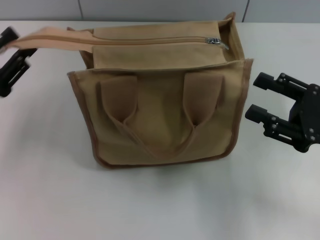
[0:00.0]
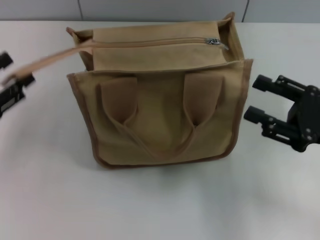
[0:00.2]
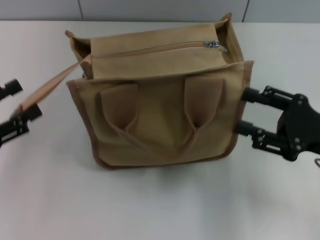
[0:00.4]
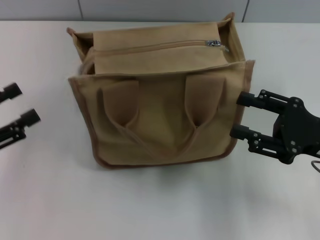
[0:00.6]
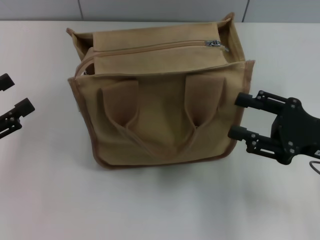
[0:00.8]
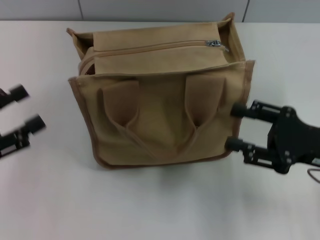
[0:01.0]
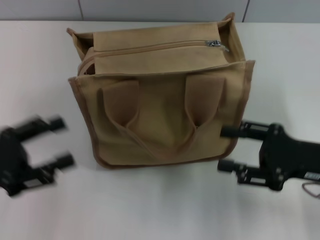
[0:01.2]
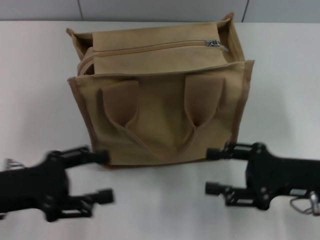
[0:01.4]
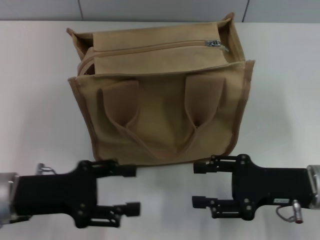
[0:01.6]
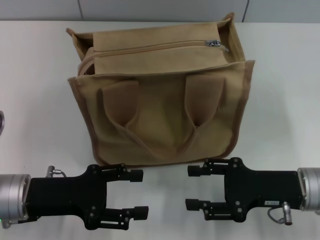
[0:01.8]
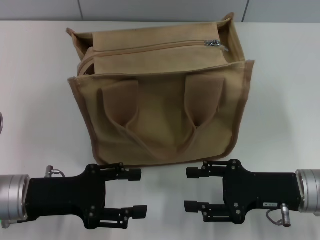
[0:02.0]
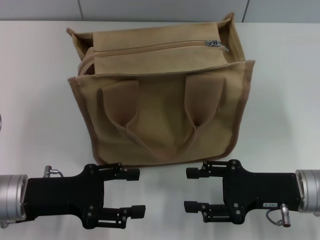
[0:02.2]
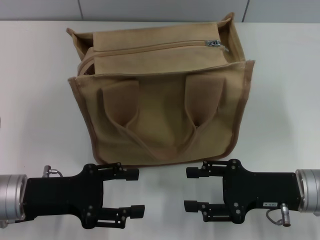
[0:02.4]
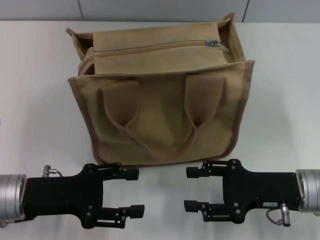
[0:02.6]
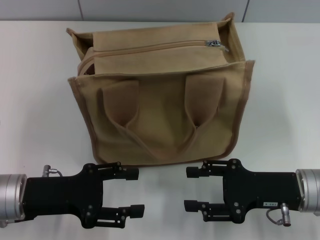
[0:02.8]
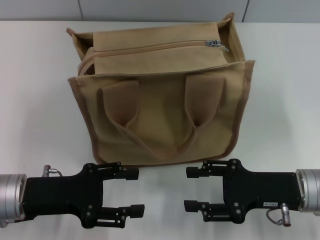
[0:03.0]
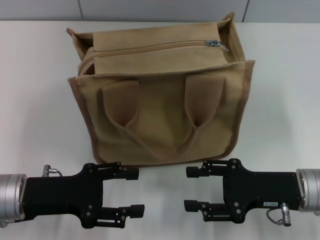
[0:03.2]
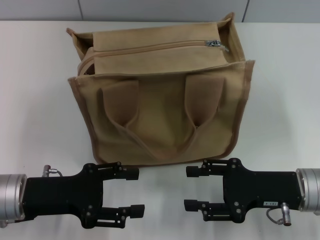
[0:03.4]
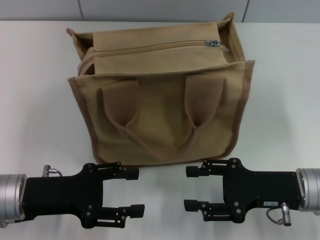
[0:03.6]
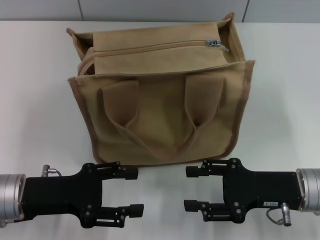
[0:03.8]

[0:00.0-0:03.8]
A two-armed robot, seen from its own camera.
0:00.0 to 0:01.2: The left gripper opens up.
0:01.2 to 0:02.6: The left gripper heads to the right, covering some 5 cm; the right gripper shifts by about 5 cm.
0:02.6 to 0:03.8: Both grippers stay about where they are.

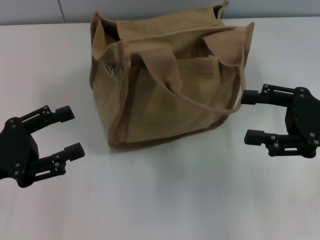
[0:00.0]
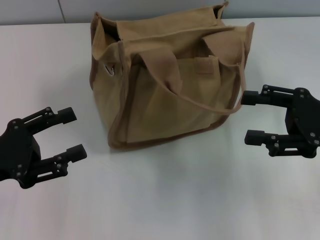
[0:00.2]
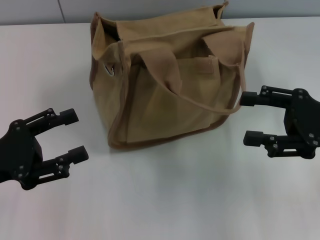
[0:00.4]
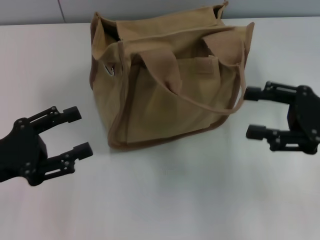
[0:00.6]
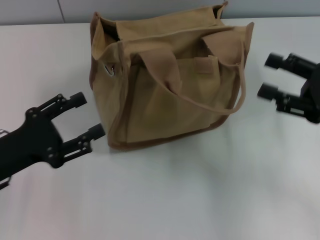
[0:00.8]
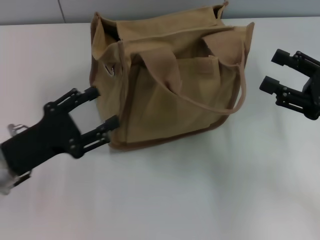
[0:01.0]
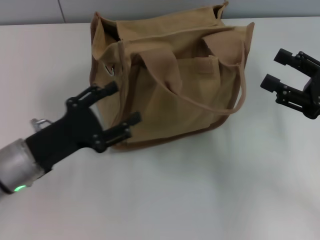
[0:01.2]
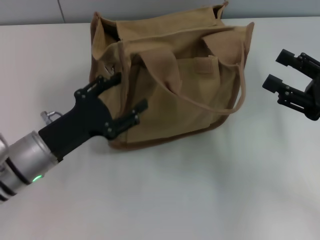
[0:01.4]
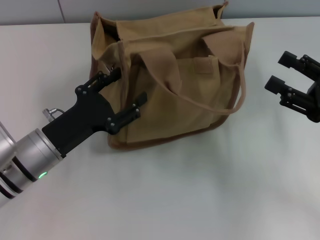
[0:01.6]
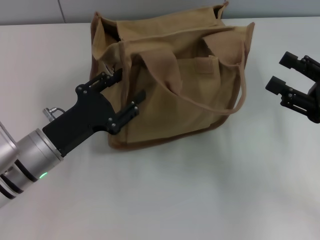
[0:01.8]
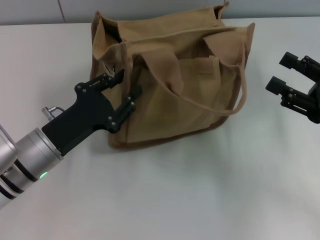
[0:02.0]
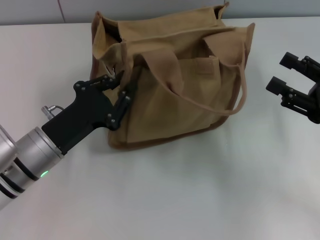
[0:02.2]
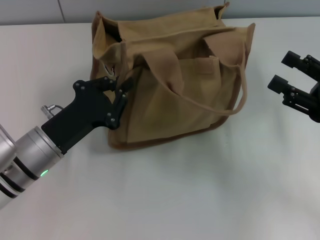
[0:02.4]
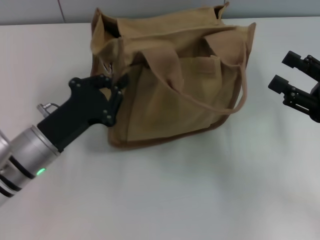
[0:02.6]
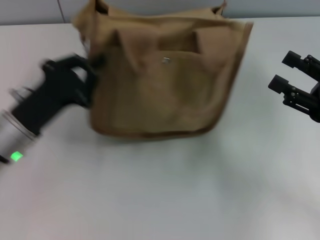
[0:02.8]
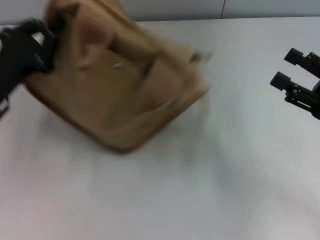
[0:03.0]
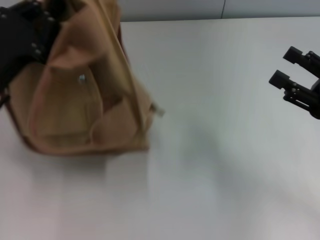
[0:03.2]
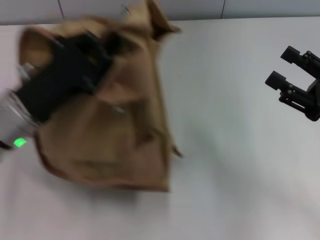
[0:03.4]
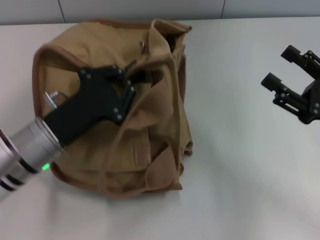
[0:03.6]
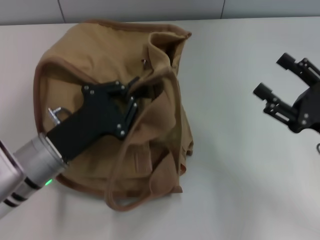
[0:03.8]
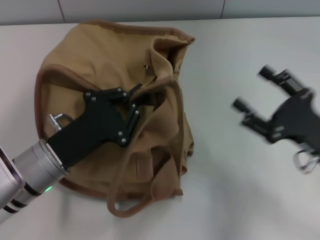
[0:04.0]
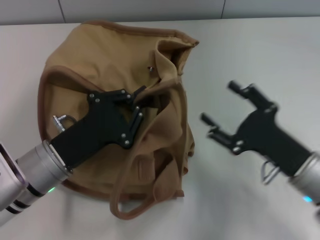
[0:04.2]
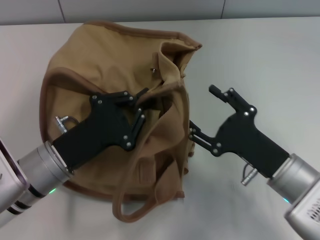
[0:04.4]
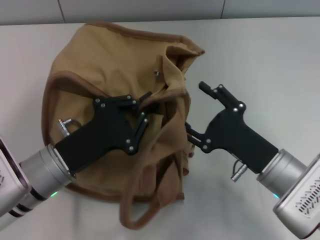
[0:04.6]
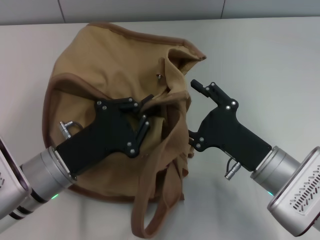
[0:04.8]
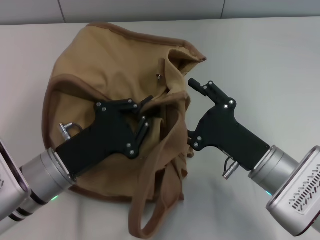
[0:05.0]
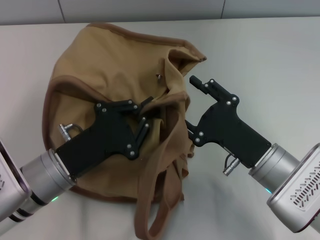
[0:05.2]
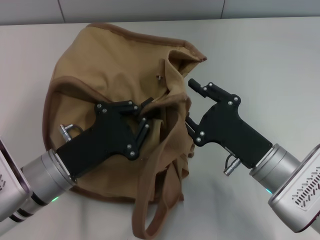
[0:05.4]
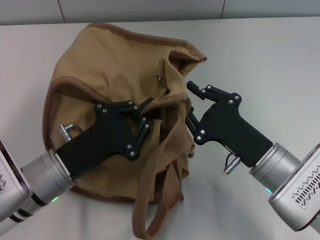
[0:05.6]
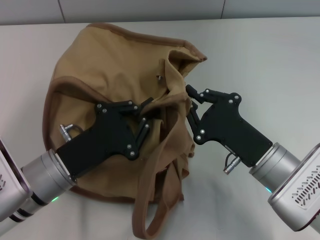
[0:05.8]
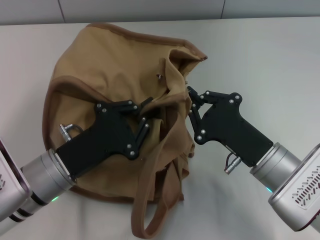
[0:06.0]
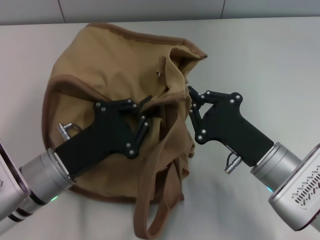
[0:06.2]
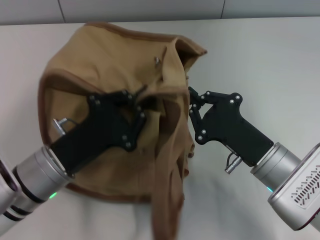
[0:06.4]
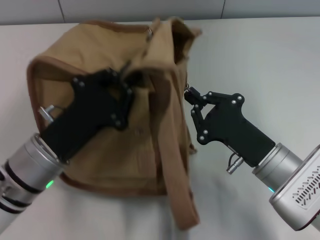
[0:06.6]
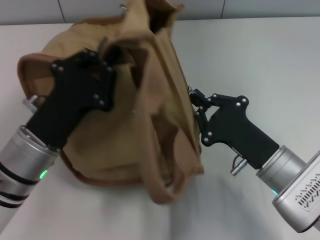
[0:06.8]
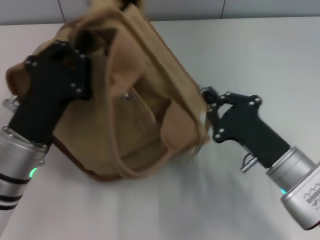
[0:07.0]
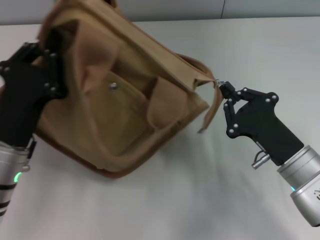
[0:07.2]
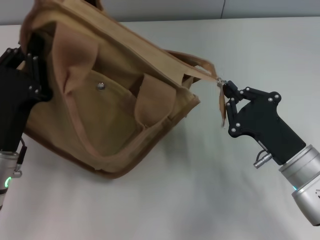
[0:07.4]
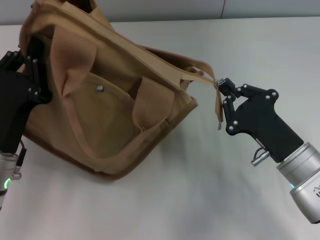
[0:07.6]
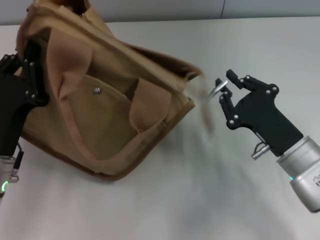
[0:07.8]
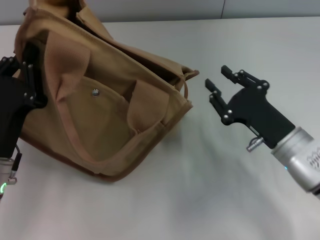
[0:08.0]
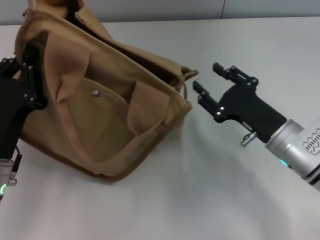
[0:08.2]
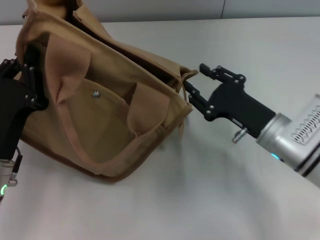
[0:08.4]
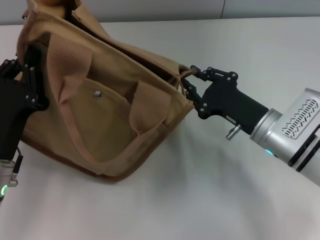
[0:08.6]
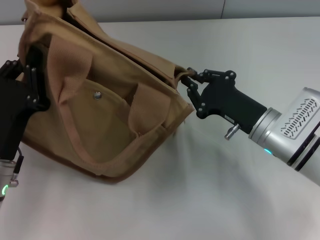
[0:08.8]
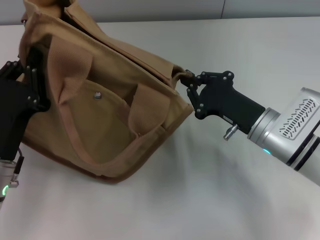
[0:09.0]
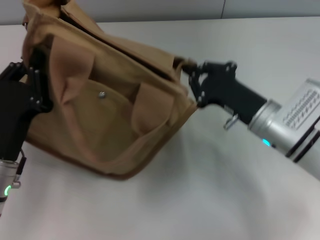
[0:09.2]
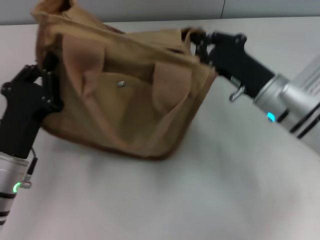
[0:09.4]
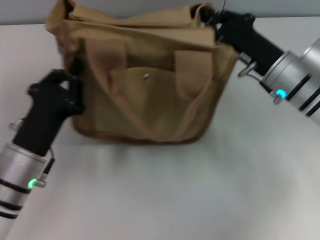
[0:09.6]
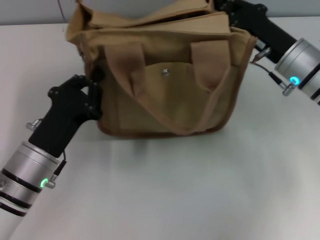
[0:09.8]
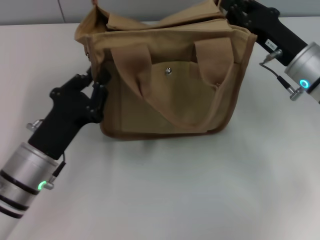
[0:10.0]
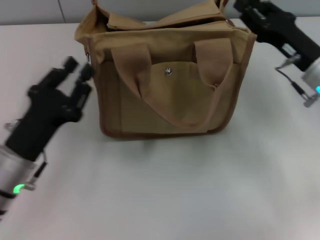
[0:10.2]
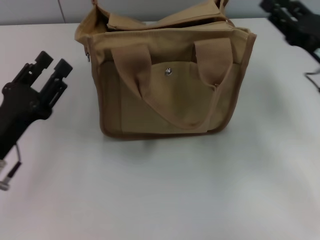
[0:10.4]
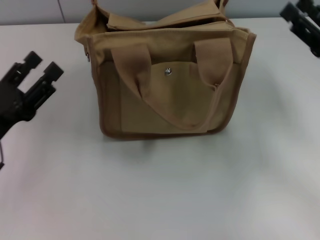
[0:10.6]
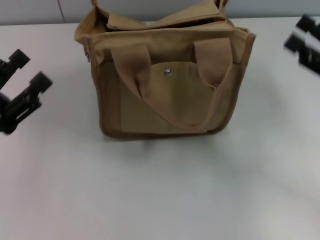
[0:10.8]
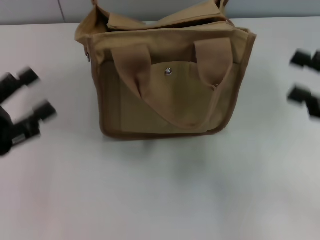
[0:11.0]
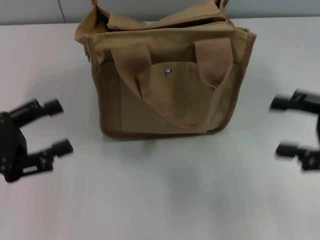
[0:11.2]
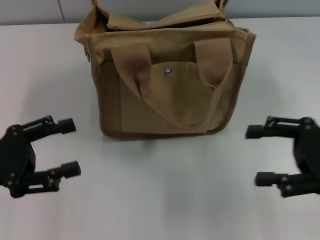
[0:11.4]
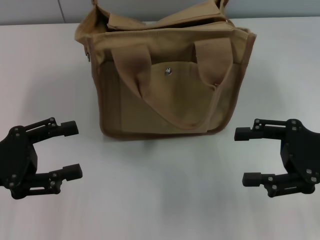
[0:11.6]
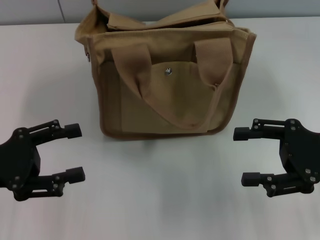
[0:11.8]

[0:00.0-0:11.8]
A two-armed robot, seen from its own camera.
Step, 0:00.0 to 0:07.8: Pull open the zipper with your right hand.
Step, 0:08.0 to 0:10.0: Grab the bag with your left hand.
0:00.0 to 0:01.4: The left gripper travels to the right by approximately 10 cm.
0:01.4 to 0:03.0: The left gripper is displaced to the left by roughly 5 cm, and closes up.
0:03.0 to 0:04.4: The right gripper shifts approximately 15 cm to the left and downward. Meanwhile the left gripper is displaced to the right and backward by approximately 10 cm.
0:04.4 to 0:06.0: The right gripper closes.
0:07.4 to 0:08.8: The right gripper is displaced forward by approximately 5 cm, and opens up.
0:08.8 to 0:10.4: The right gripper is displaced to the right and upward by roughly 10 cm, and closes and opens again.
0:10.4 to 0:11.8: The right gripper is displaced backward by roughly 5 cm, and opens its fingers; the left gripper goes about 5 cm to the left, and opens its fingers.

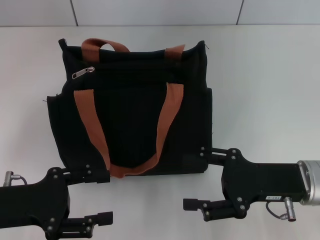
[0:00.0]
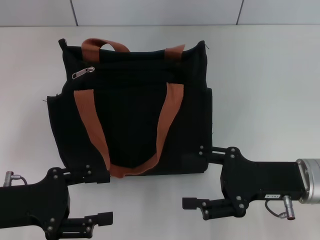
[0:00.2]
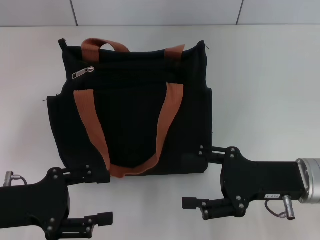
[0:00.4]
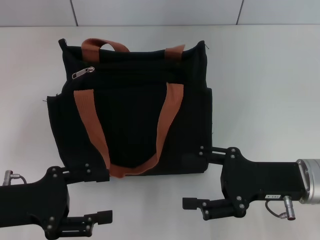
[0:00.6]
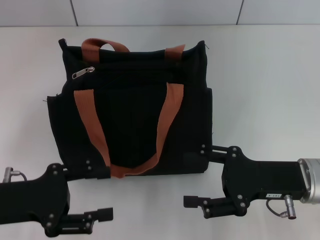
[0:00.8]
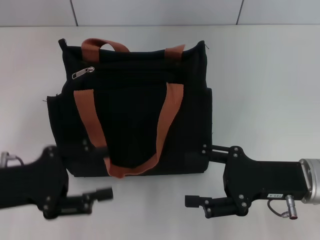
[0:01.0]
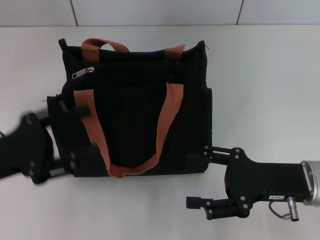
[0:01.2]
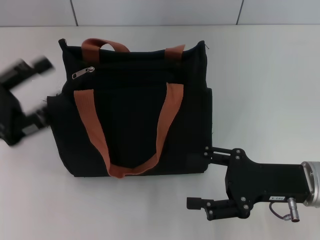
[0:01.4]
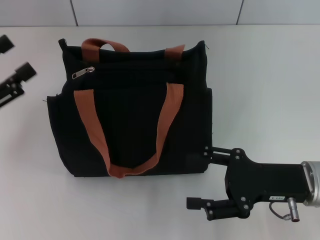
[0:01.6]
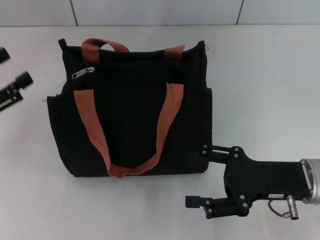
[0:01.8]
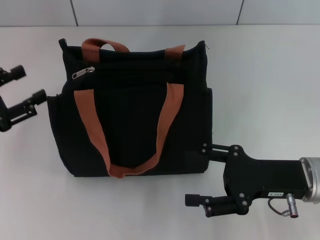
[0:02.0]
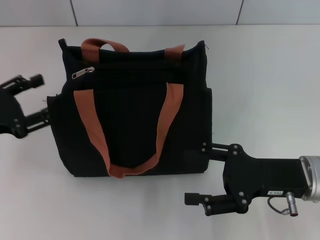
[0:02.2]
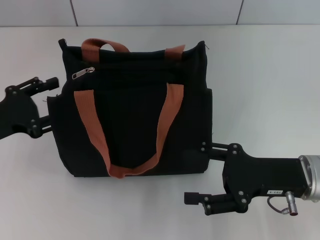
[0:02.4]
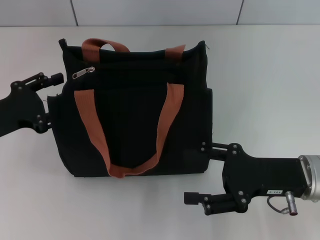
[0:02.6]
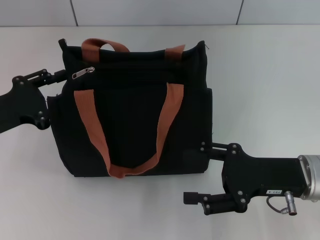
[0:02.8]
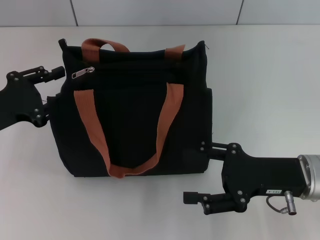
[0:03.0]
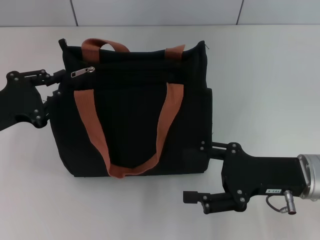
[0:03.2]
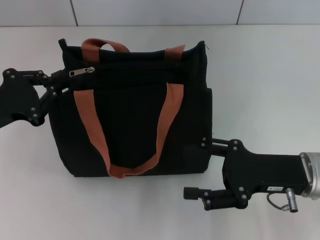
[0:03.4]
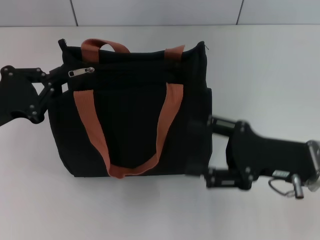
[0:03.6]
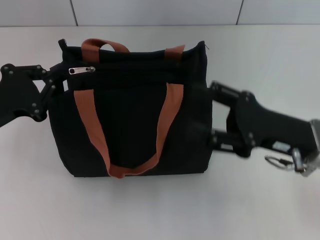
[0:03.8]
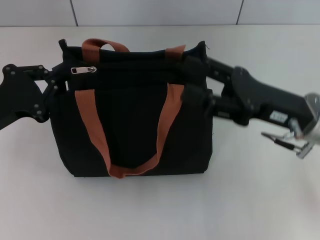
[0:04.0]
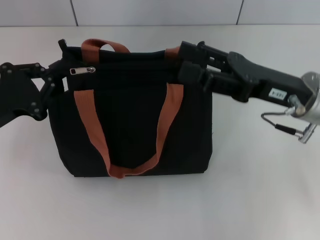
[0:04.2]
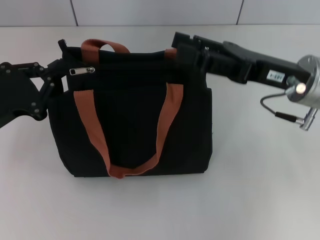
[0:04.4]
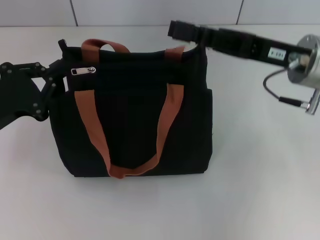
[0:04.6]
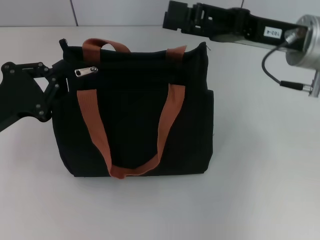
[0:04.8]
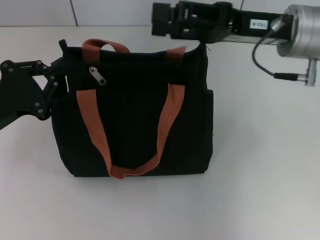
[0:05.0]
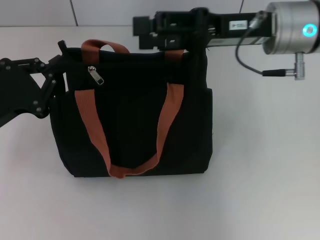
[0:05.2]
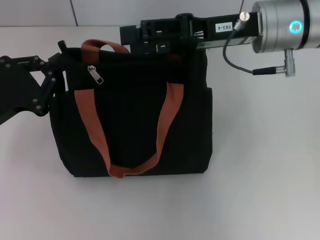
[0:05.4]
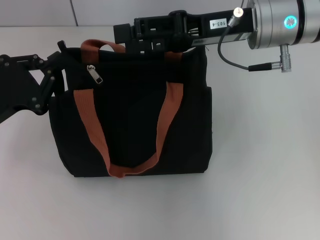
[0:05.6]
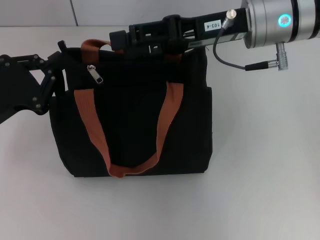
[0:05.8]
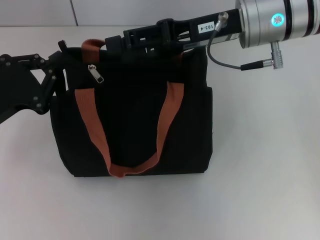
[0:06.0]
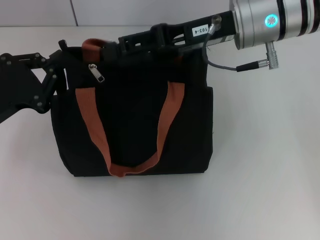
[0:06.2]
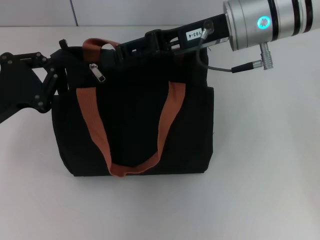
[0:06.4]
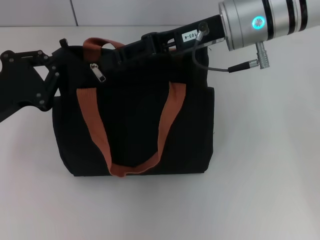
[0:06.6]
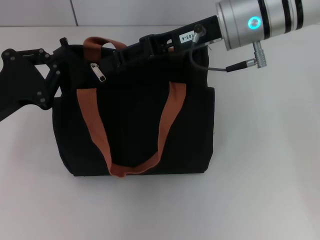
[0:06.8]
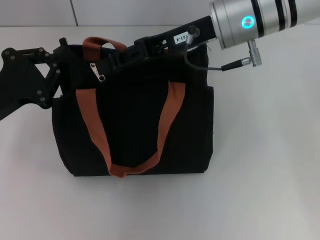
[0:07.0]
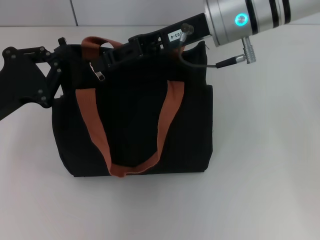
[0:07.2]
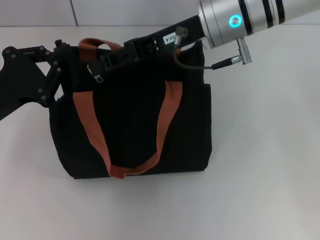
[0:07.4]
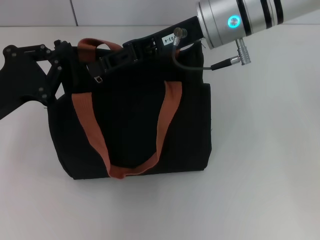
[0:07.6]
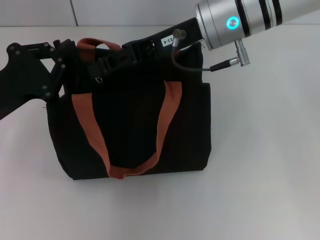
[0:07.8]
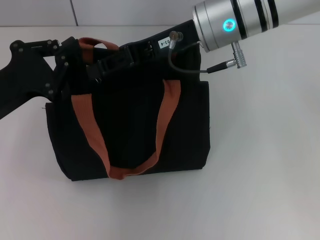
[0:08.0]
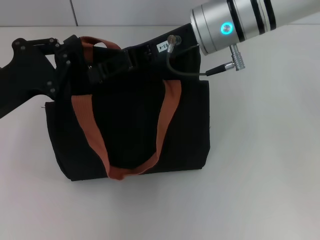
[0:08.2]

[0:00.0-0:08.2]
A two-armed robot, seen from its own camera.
0:00.0 to 0:01.6: The left gripper travels to the left by some 5 cm.
0:01.6 to 0:03.2: The left gripper changes place by about 5 cm, and closes.
0:03.2 to 0:05.0: The left gripper closes up. Meanwhile the right gripper goes approximately 15 cm upward and forward.
0:05.0 to 0:06.6: The right gripper travels to the left by approximately 5 cm.
0:06.6 to 0:08.2: There are only small adjustments of the grippers.
